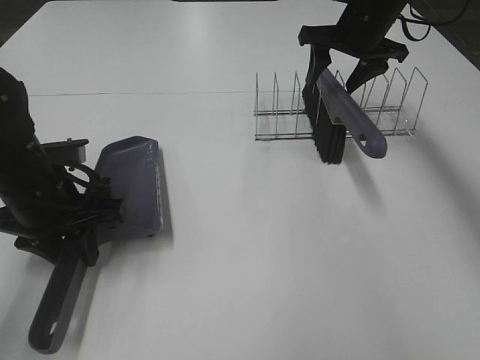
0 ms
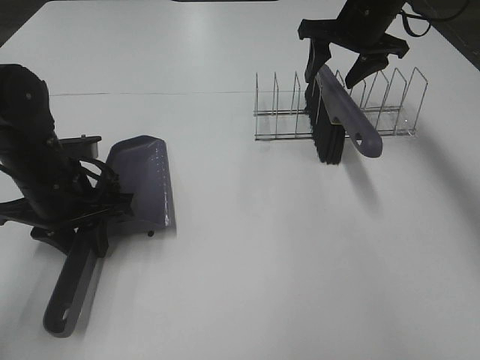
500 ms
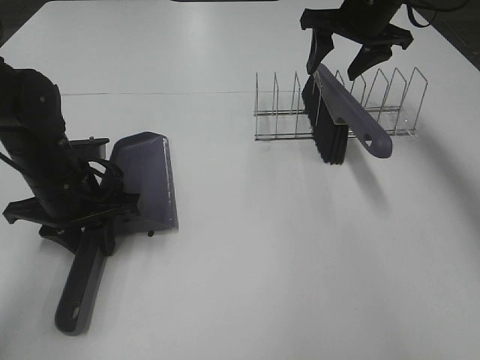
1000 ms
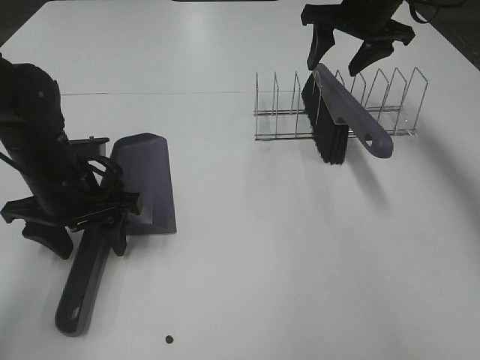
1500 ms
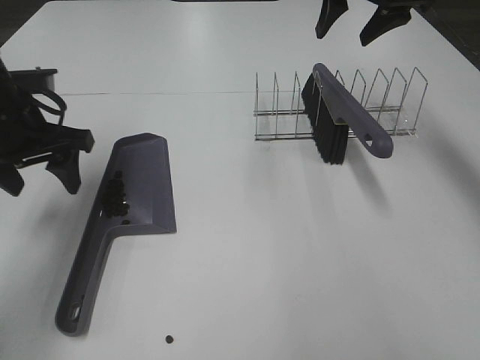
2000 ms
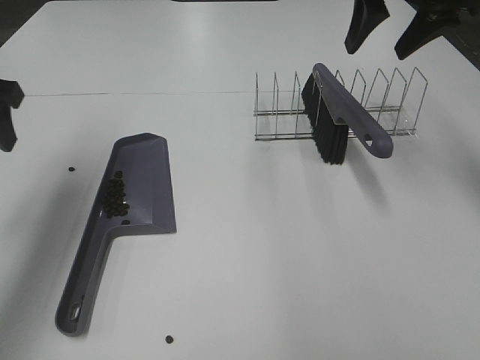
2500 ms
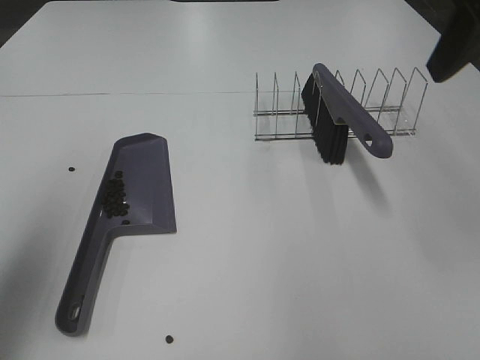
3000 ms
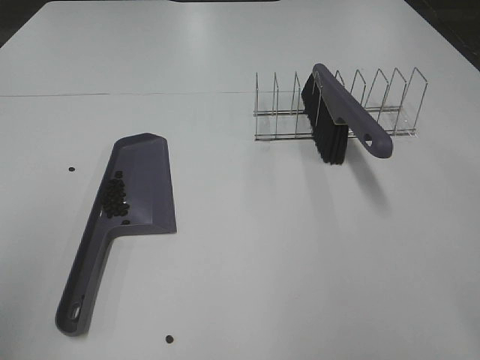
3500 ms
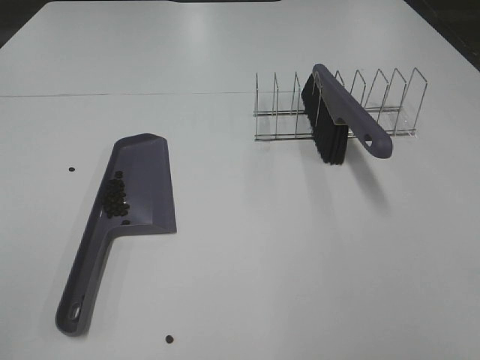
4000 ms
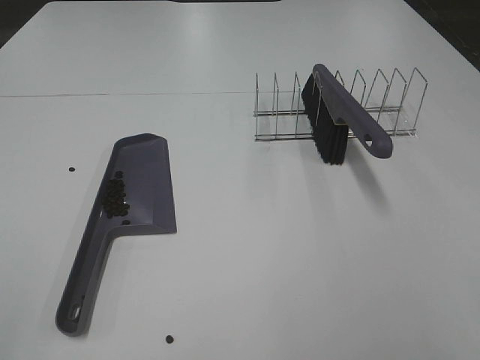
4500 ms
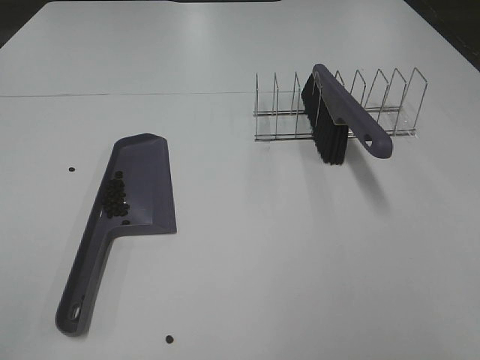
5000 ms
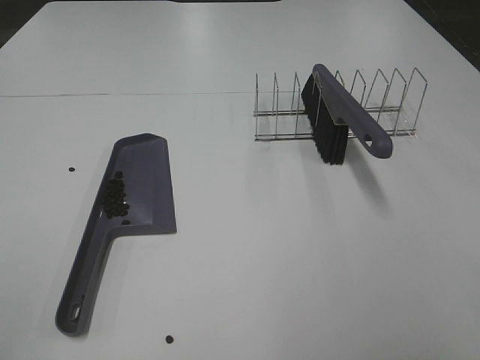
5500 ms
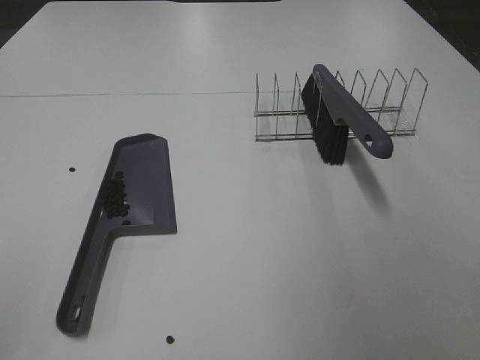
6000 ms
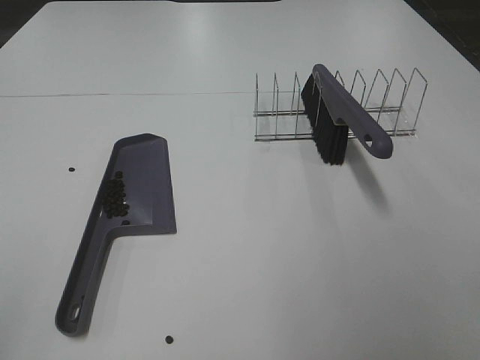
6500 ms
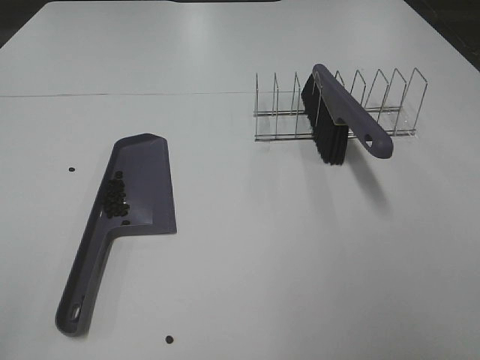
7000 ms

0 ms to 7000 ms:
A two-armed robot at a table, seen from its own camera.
Task of the whole recording: Sweep Coffee Bean.
Step, 0 ms to 1000 ms: Left hand:place the dustpan on the table.
0 ms to 2000 ms: The left gripper moves upward and forward, some 10 cm, and opens its fingers. Meanwhile the right gripper shifts roughly 10 cm upward.
2000 ms to 3500 ms: The left gripper shifts roughly 30 cm backward and upward, while the right gripper goes approximately 35 cm backward.

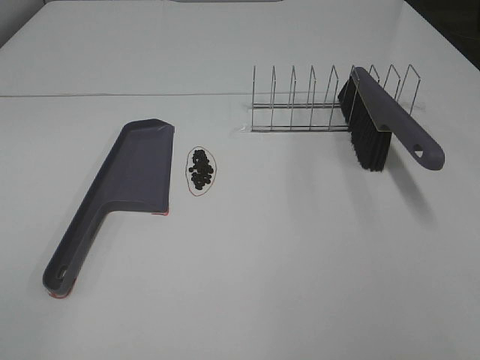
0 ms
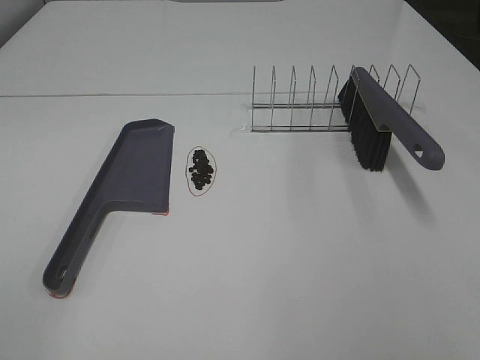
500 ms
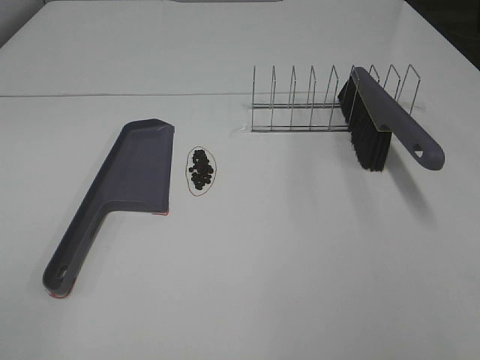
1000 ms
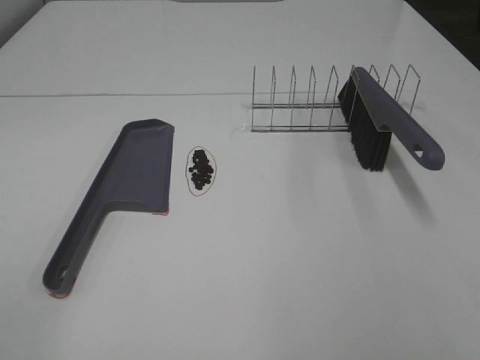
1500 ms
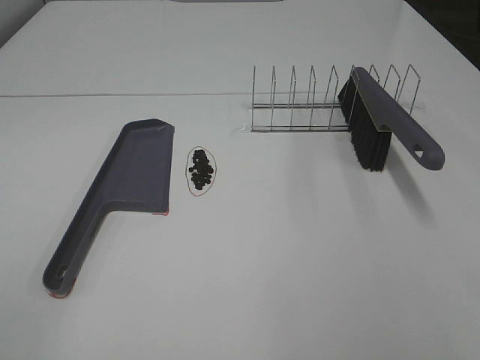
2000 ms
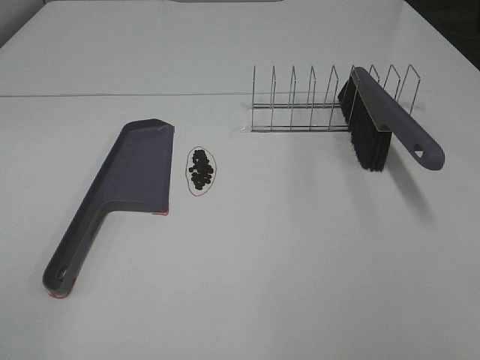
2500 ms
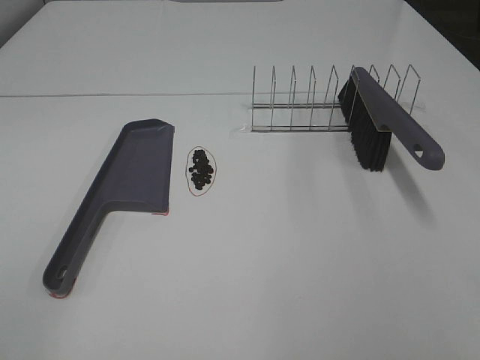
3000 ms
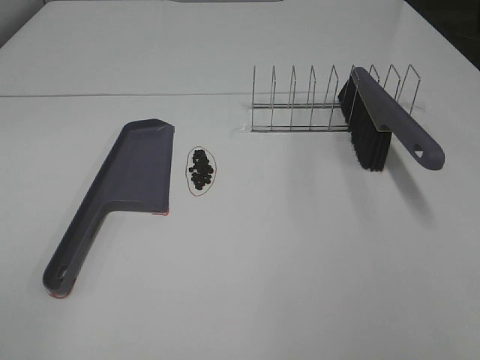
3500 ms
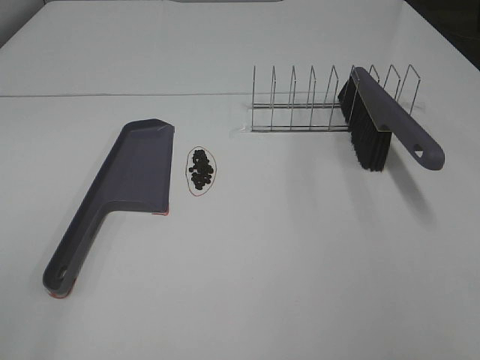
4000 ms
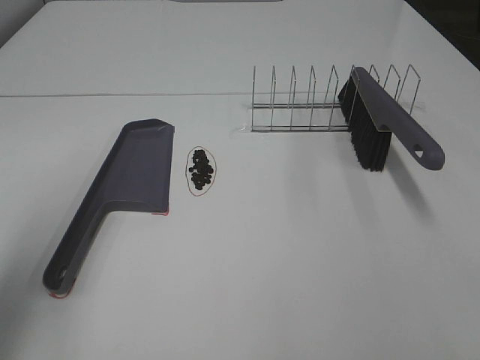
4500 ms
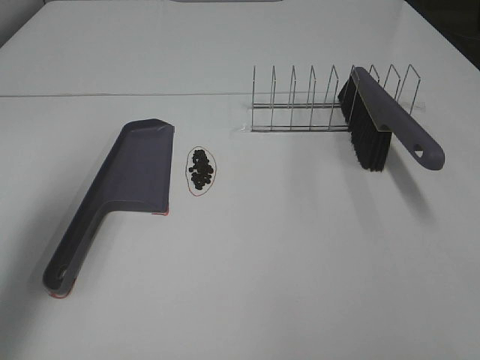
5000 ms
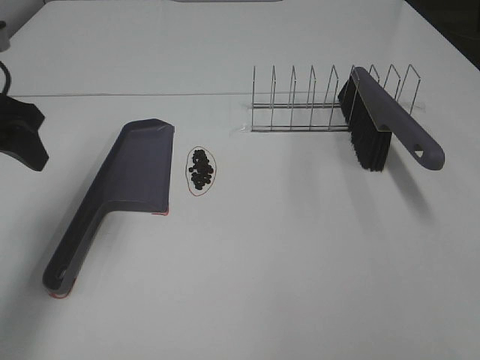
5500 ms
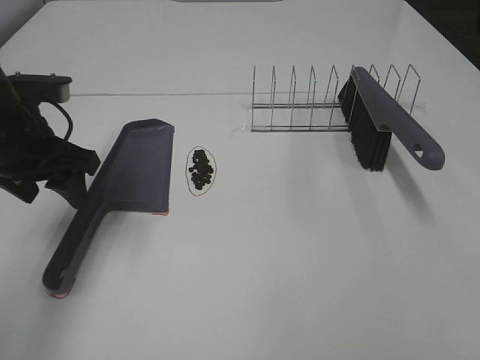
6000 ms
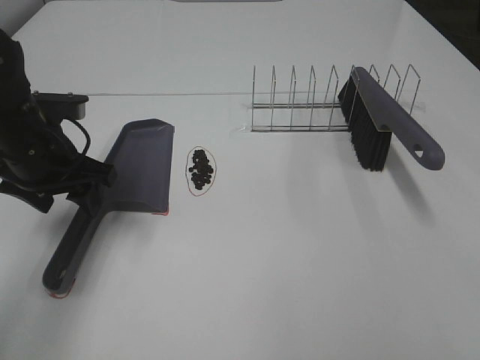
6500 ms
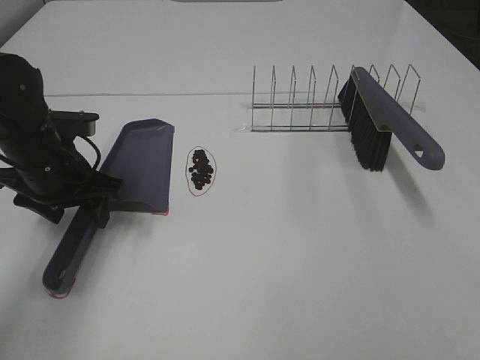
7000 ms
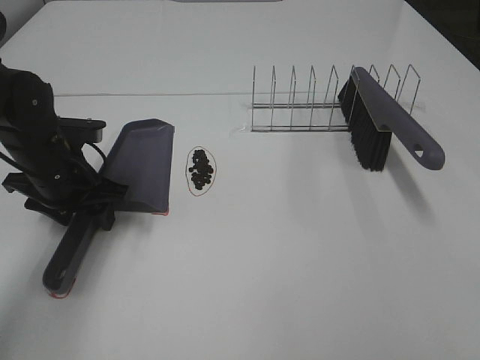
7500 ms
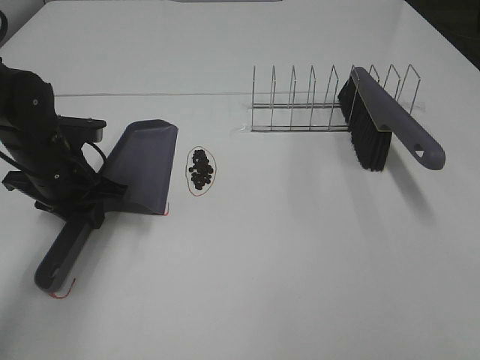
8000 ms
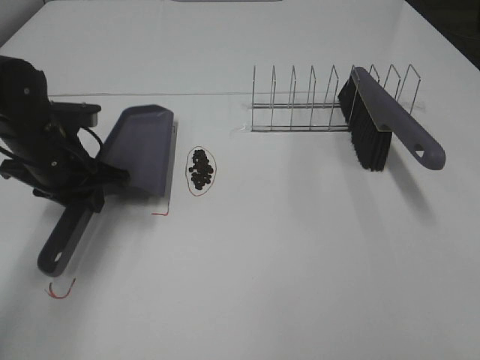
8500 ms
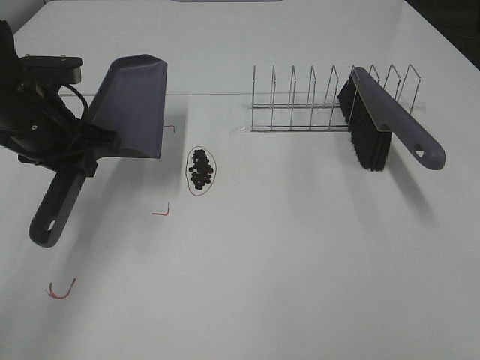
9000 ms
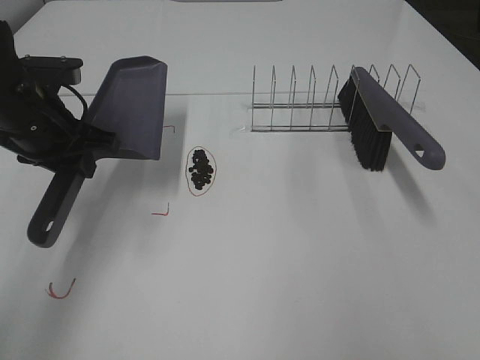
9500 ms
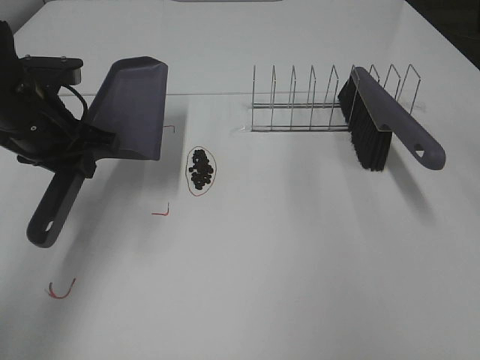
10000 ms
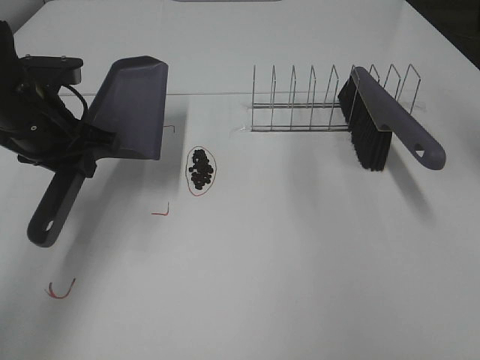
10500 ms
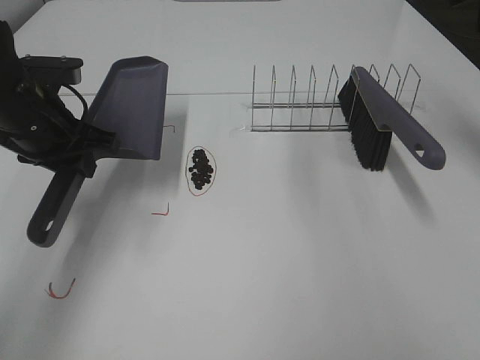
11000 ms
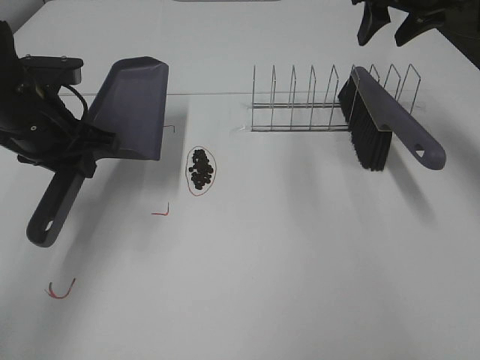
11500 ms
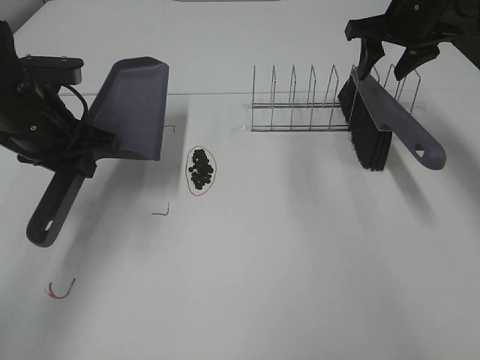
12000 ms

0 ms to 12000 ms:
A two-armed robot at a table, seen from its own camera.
Task of the whole recording: Sweep Coffee Bean.
Step, 0 ms to 8000 ms: Left hand: grab the dustpan.
0 ms to 2000 ms: Both grippers stay put.
4000 ms to 6000 ms: The left gripper heads forward and downward, covering about 35 cm.
6000 ms to 8000 ms: The left gripper is displaced downward by roughly 10 cm, and closes its fingers.
8000 ms to 10000 ms: The left gripper travels upward by approximately 10 cm. Meanwhile the right gripper shifts some 25 cm forward.
10000 ms to 12000 ms: The right gripper travels forward and downward by roughly 30 cm.

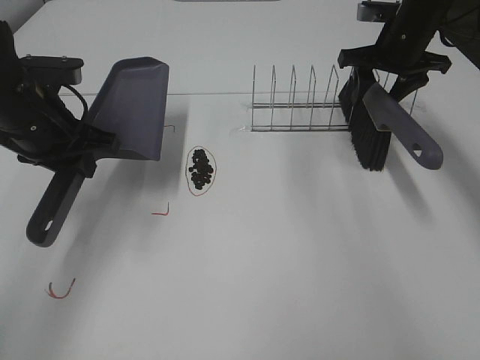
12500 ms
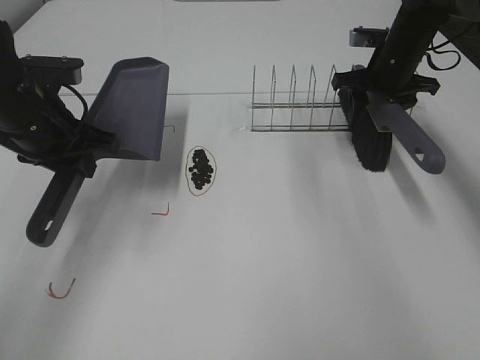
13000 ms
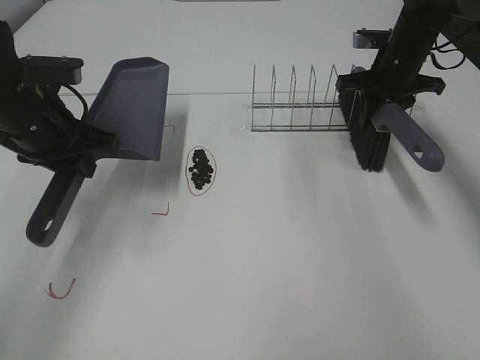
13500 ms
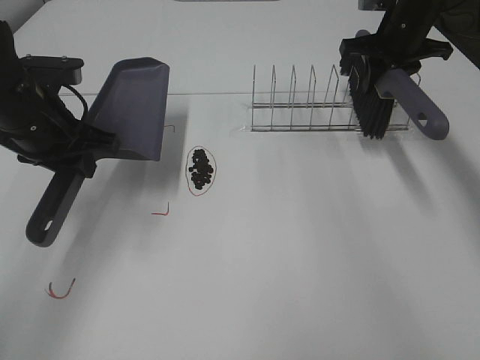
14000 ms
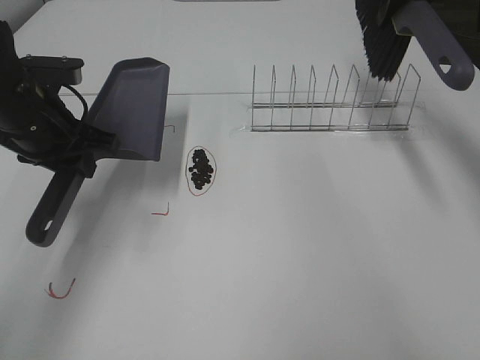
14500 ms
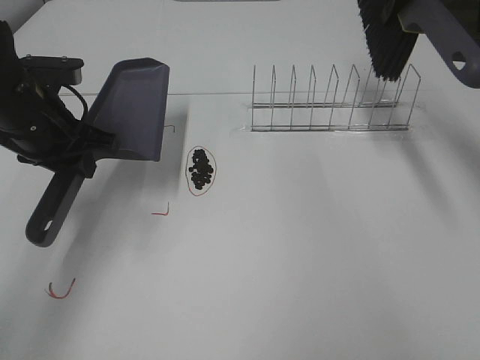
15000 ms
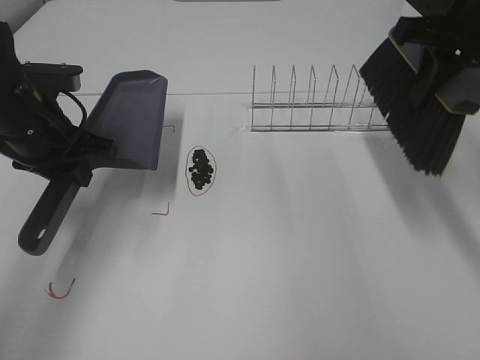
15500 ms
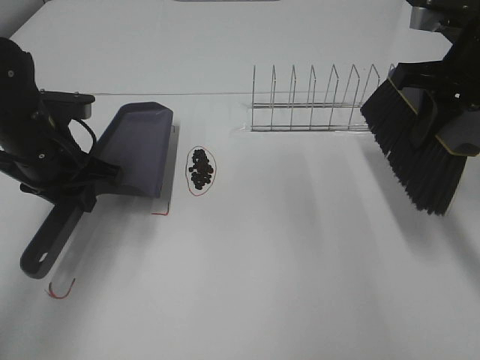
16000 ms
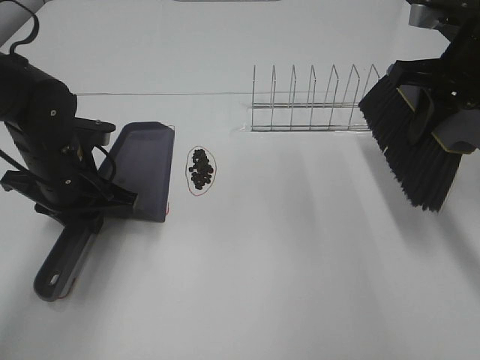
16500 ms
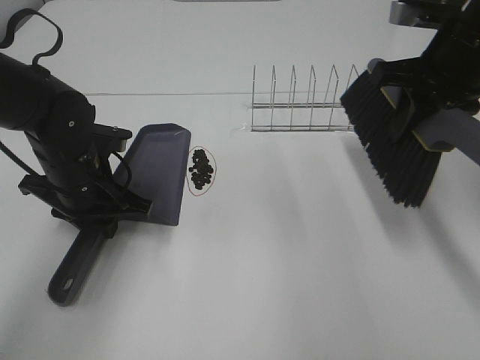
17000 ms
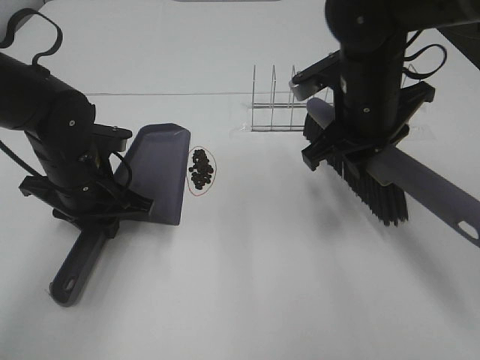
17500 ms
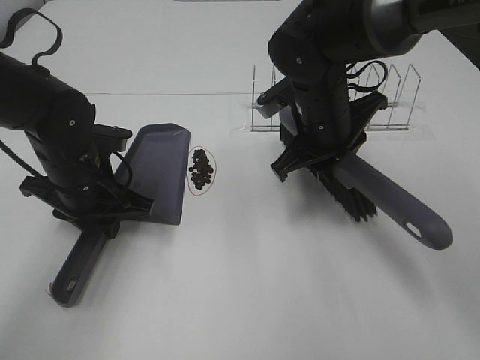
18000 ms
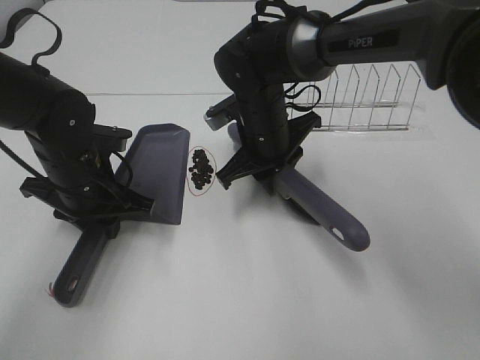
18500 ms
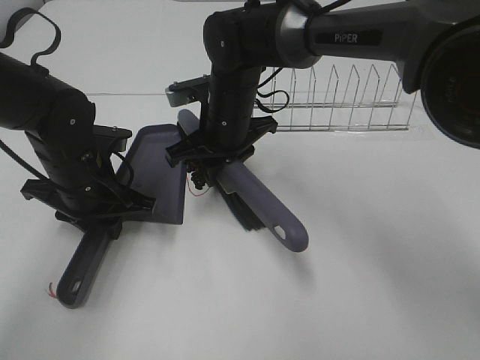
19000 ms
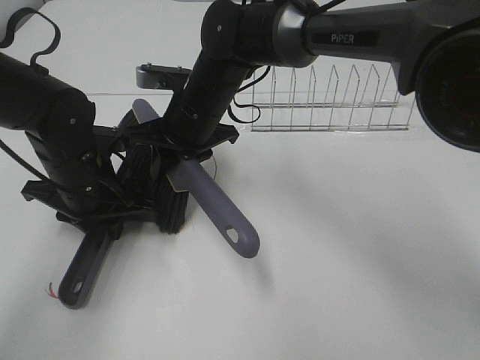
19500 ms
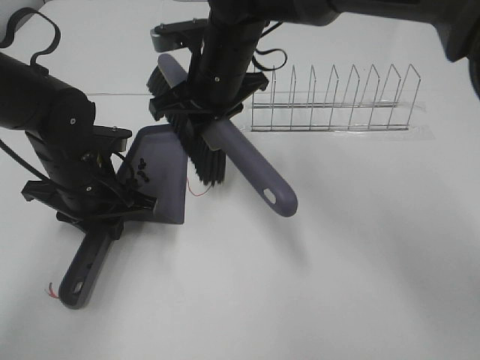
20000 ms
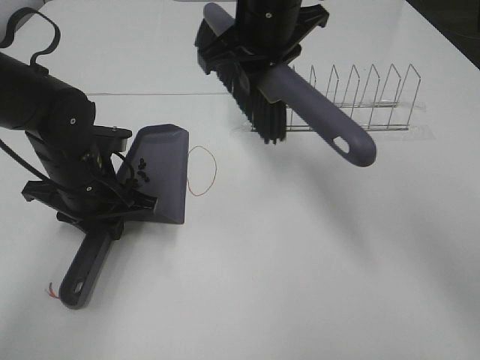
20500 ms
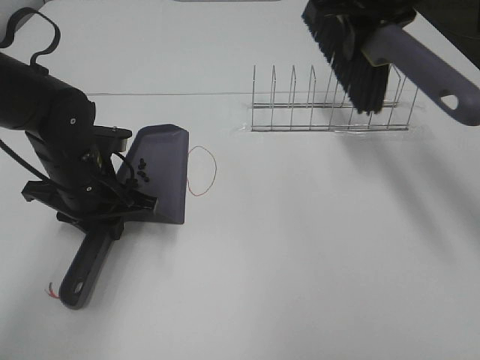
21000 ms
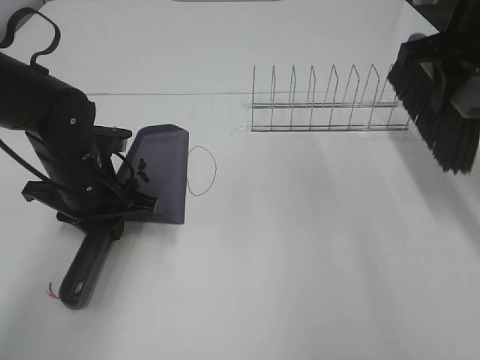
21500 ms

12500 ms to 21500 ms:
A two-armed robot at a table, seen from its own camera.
Task of the whole recording: Sweep Coffee Bean.
Step, 12500 ms to 17500 ms: Left hand: move the dustpan to the left side of the coffee beans.
Step, 14000 ms to 20000 ms: Right hand:sweep the coffee beans into the dustpan.
12500 ms to 14500 ms: The right gripper is displaced upward by approximately 10 cm, and closes its fingers.
14500 ms to 17000 ms: The left gripper goes some 10 cm downward; the right gripper travels backward by some 15 cm.
17000 ms to 19500 ms: The right gripper shifts roughly 30 cm to the left and downward.
19500 ms to 21500 ms: The right gripper moves to the right and upward, roughly 30 cm.
